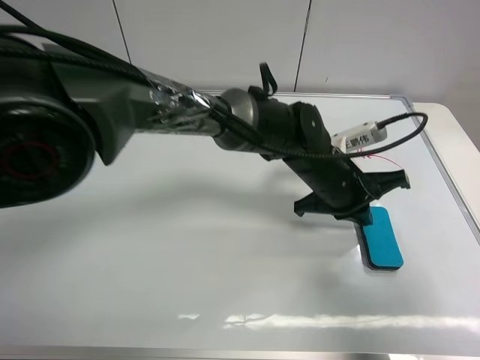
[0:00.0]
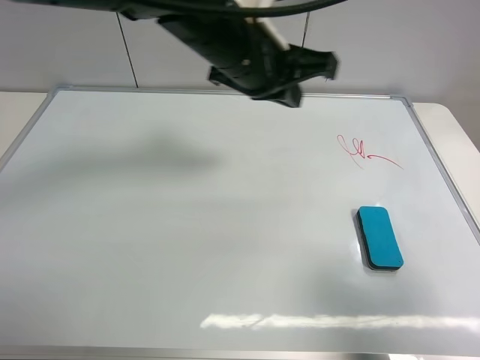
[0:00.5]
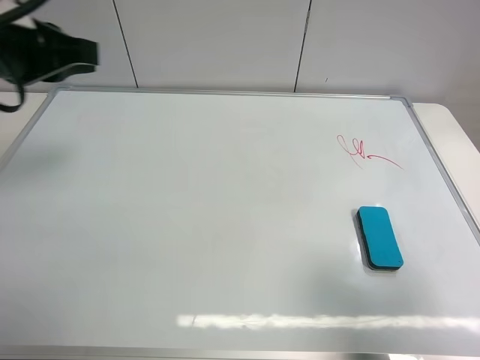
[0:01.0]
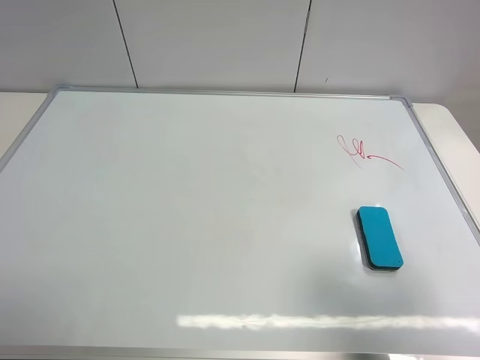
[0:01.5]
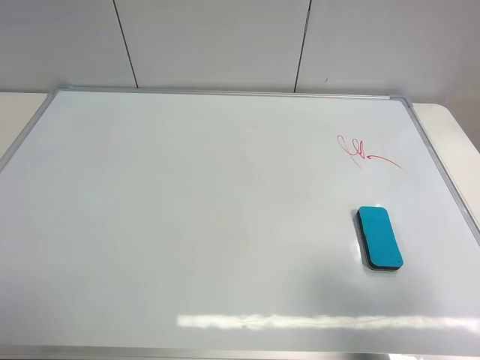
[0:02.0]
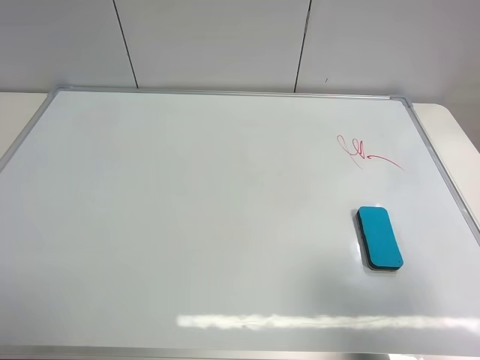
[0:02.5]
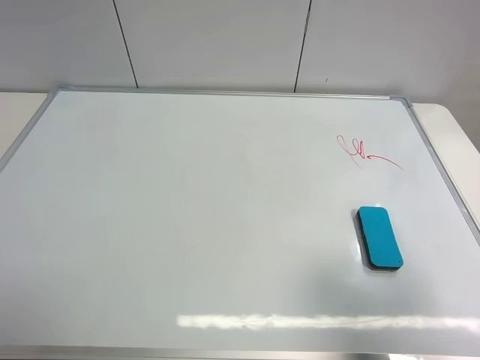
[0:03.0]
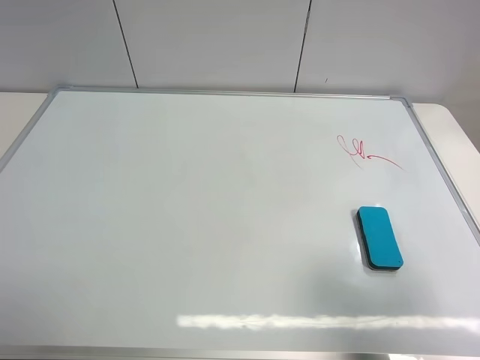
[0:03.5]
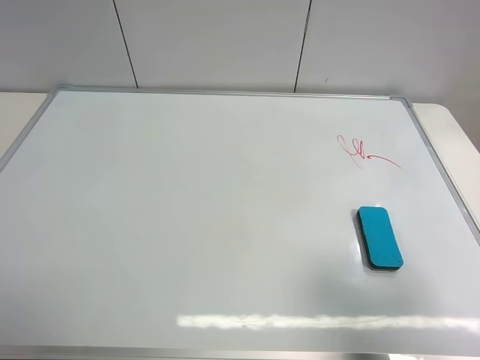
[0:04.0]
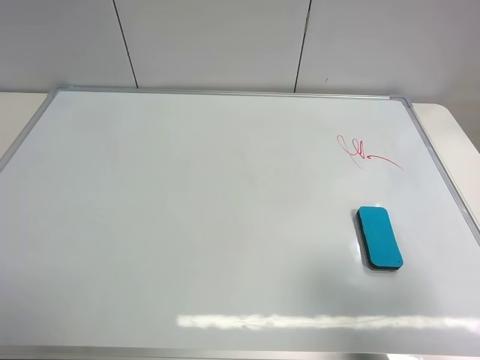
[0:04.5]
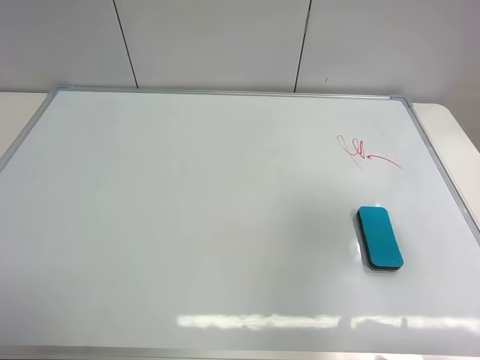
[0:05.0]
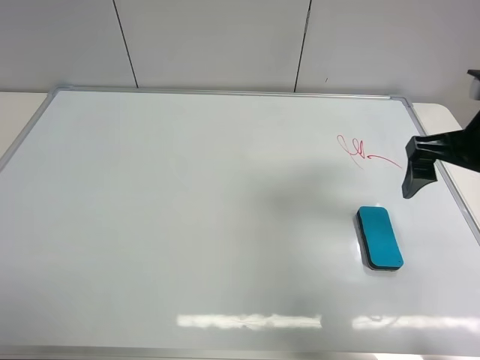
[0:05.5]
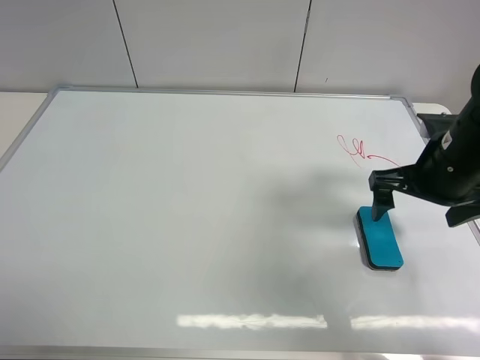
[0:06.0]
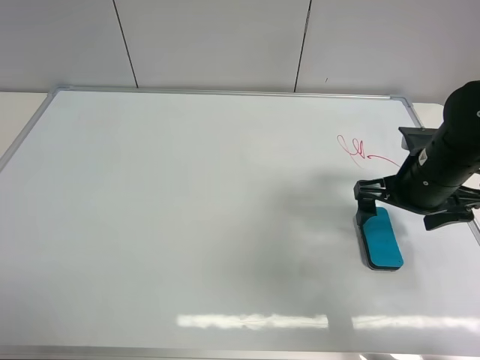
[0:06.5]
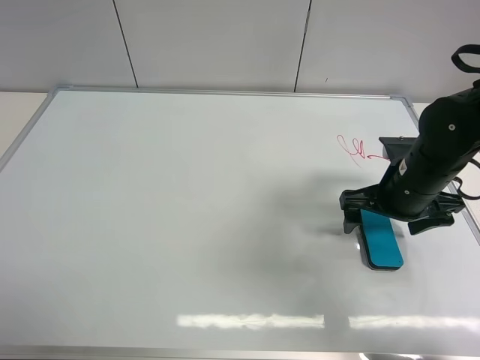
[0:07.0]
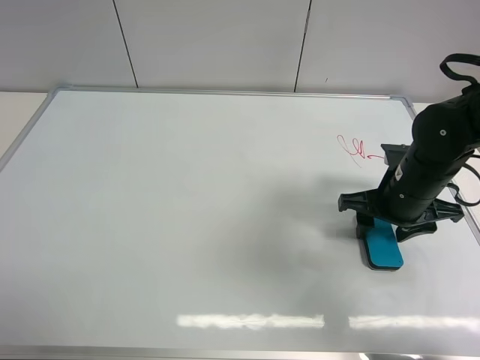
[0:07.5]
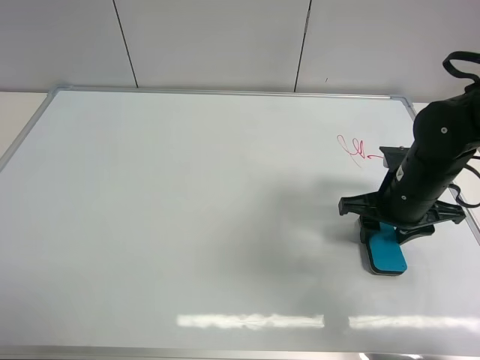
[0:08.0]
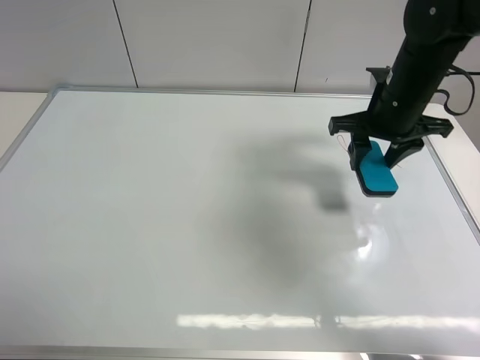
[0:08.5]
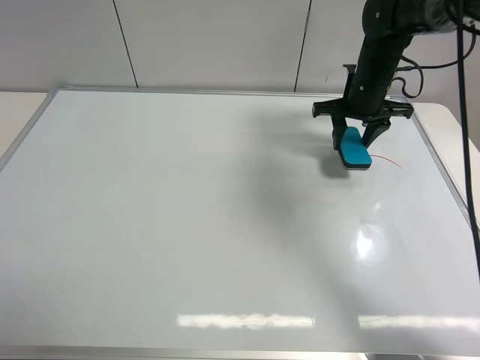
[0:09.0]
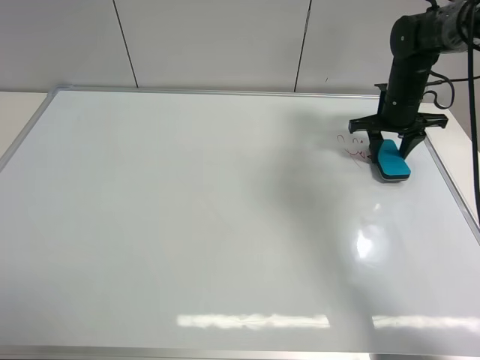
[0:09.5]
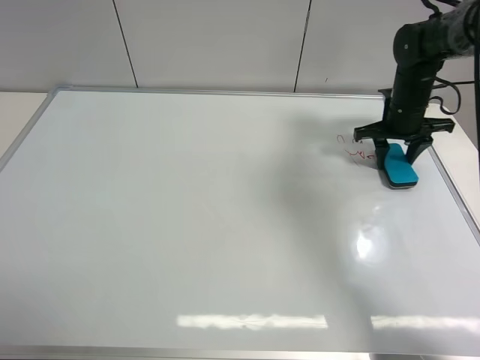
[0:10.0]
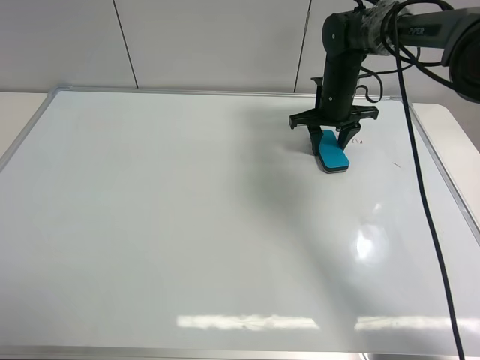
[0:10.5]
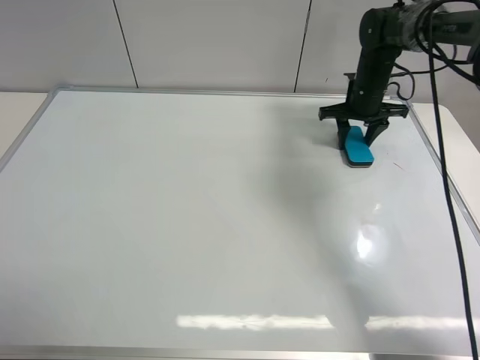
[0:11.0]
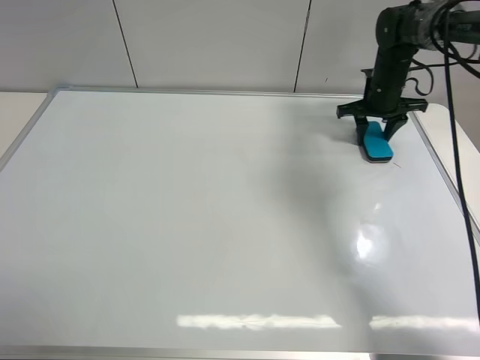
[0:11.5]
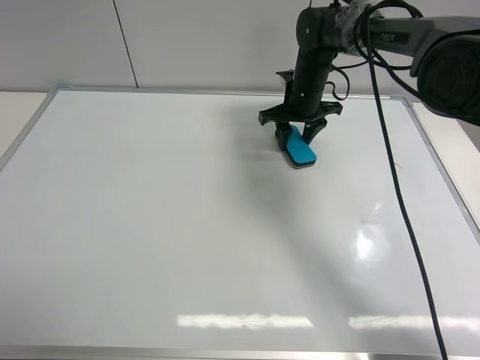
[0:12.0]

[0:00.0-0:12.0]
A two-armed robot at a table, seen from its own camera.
Task of the whole recording: use the left gripper to place the eraser in the right, use the right gripper to pick up the eraser, wipe the notes on the whiteboard clean, and then put it down.
Step, 0:00.5 to 0:08.0: Pick up the board eraser with right gripper.
0:00.0 to 0:02.0: The left gripper is displaced to the left, backward and upward by approximately 60 cm, and opens its fingers.
0:04.0 to 0:06.0: The right gripper shifts about 25 cm forward and downward.
0:06.0 to 0:08.0: The right gripper heads downward, covering some 5 cm, and closes.
0:08.0 to 0:10.0: The right gripper heads forward, covering about 20 cm.
0:10.0 to 0:12.0: The right gripper goes left and right, approximately 15 cm each way, reversing 2 times.

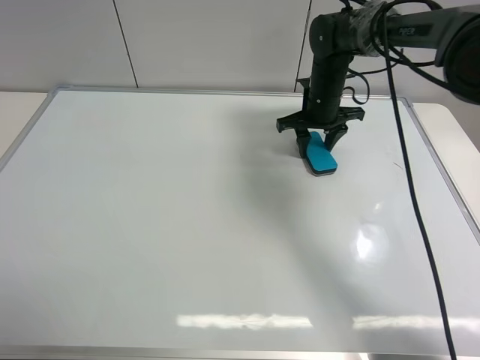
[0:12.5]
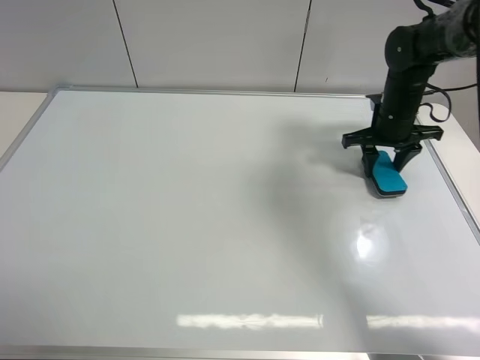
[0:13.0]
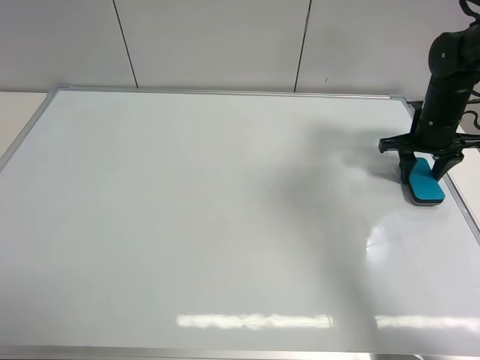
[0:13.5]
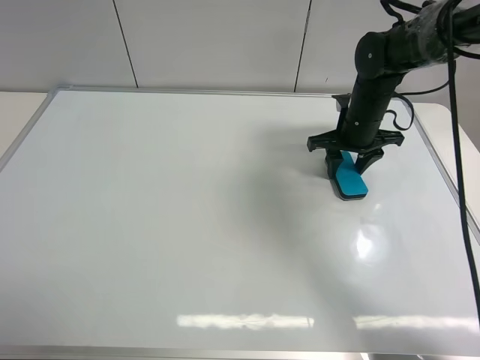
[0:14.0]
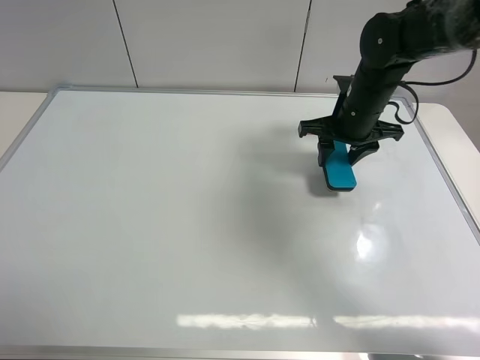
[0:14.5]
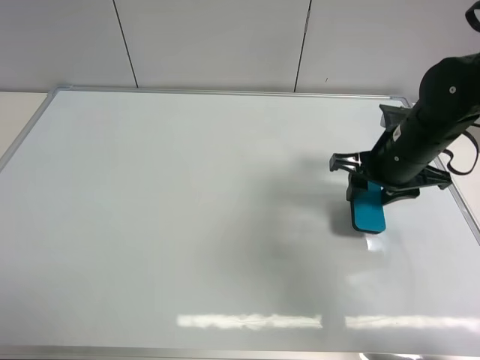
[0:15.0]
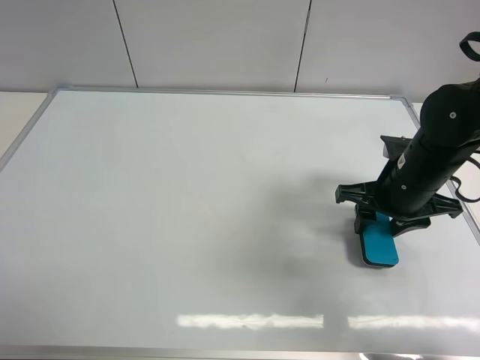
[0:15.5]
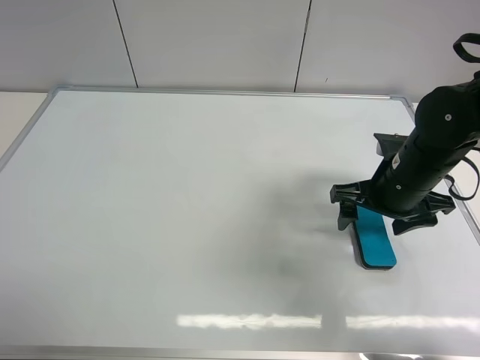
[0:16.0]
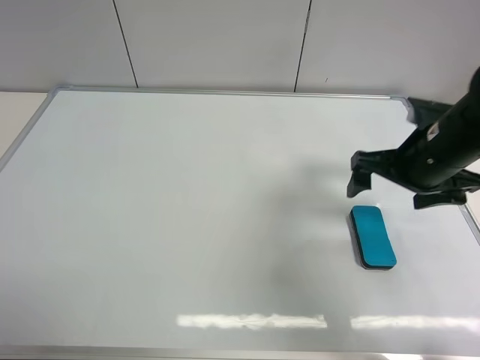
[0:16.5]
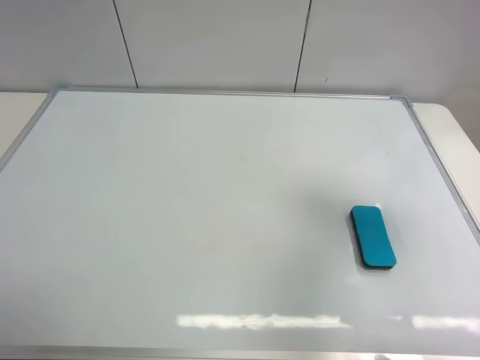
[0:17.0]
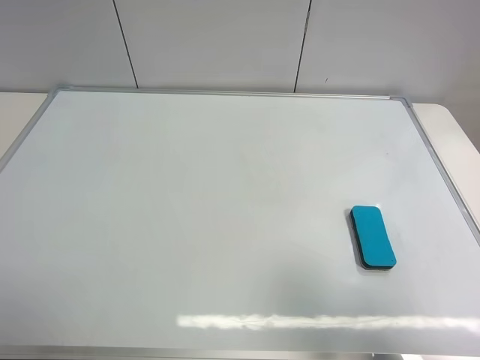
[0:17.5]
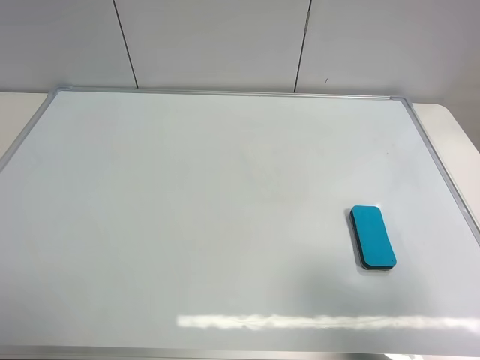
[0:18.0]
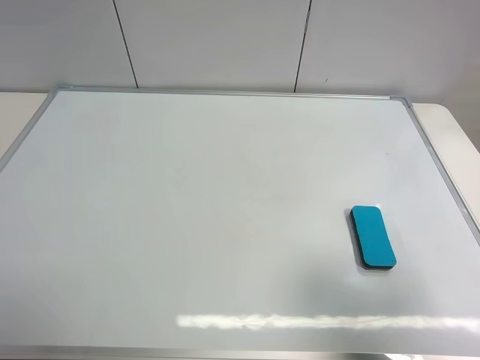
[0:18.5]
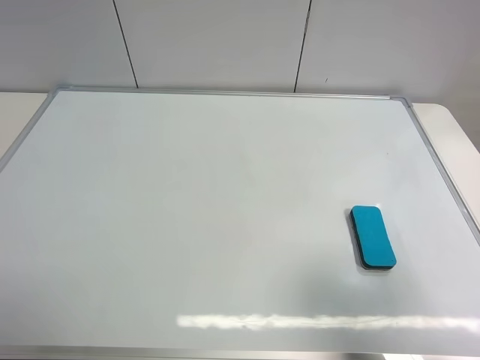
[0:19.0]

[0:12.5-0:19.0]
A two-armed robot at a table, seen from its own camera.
Task of the whole recording: use the left gripper to place the eraser in the right, use the right gripper to pick up the eraser, wipe the notes on the whiteboard clean, and then put it down.
Step, 0:12.5 to 0:14.5: Wipe off the writing on the board with right gripper.
Step, 0:15.0 to 0:16.0: Place the board eraser on the right side of board with right gripper.
0:12.5 to 0:14.5: The right gripper shifts about 10 cm backward, and goes to the right and returns, approximately 15 cm each way.
0:14.5 to 0:17.0: The right gripper travels backward, upward and to the right by roughly 30 cm, and opens.
0:17.0 to 0:19.0: The right gripper moves backward, approximately 15 cm.
